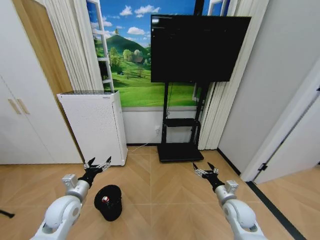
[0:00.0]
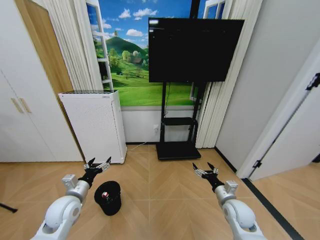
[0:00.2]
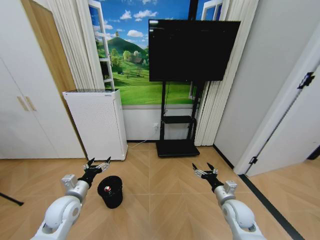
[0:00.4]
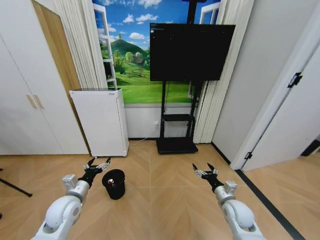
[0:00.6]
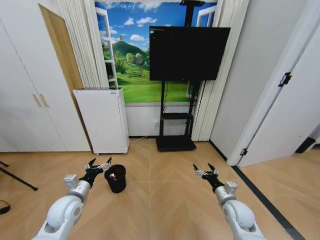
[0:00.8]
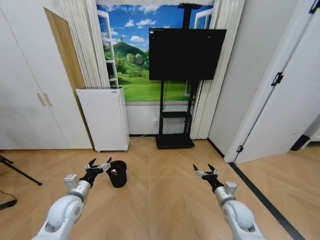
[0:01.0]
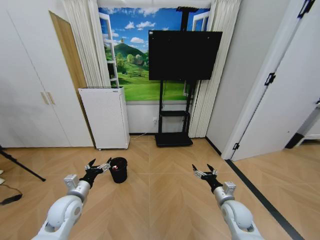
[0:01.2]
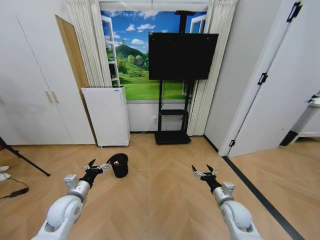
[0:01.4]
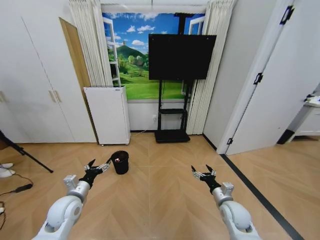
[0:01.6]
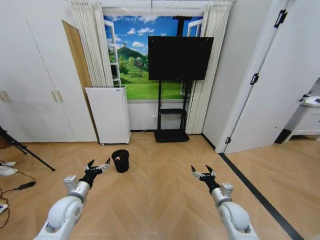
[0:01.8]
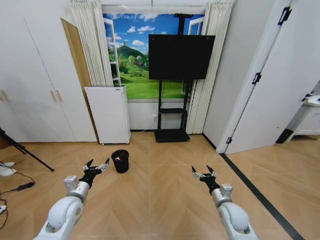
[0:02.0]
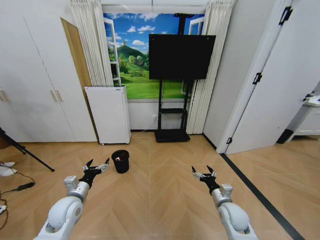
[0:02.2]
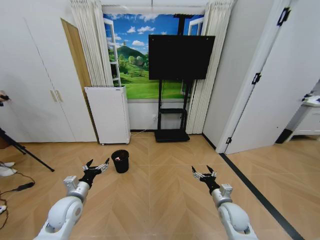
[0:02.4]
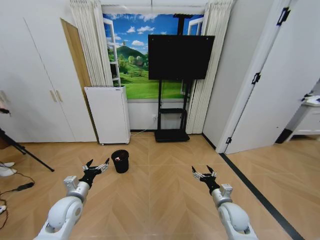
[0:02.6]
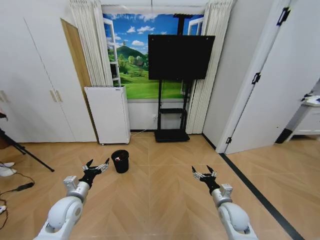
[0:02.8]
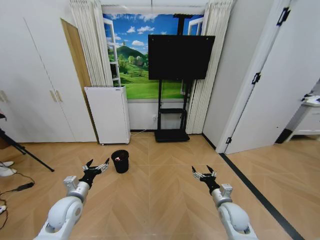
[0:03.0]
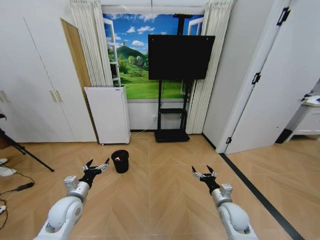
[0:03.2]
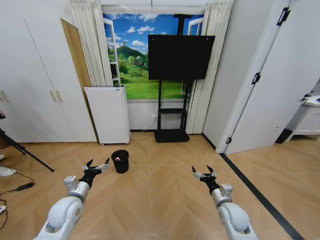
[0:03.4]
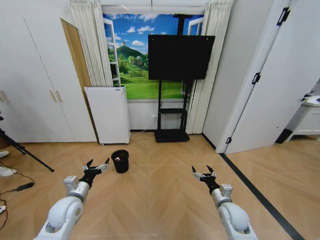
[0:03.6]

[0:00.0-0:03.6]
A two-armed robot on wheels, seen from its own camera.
Task of the whole recording: Pick up the trash bin and place the garbage on the floor into it.
0:01.8 to 0:03.6: Both grippers stay about where they are.

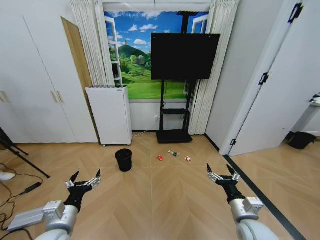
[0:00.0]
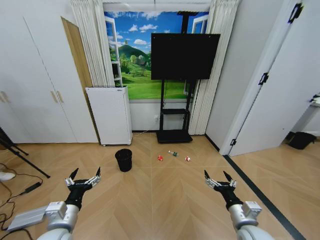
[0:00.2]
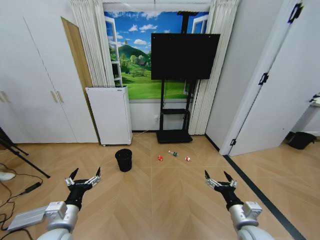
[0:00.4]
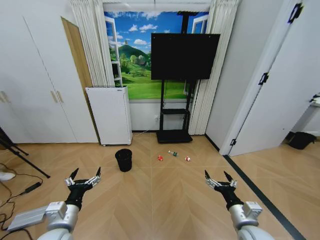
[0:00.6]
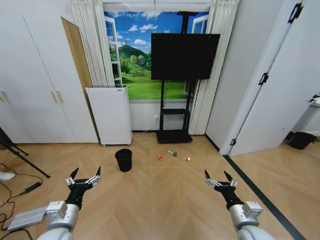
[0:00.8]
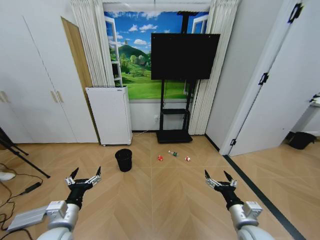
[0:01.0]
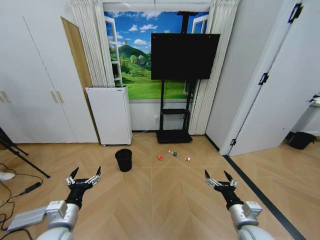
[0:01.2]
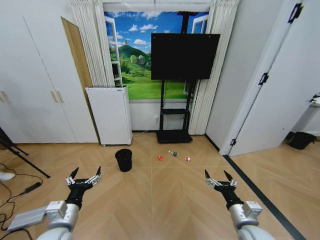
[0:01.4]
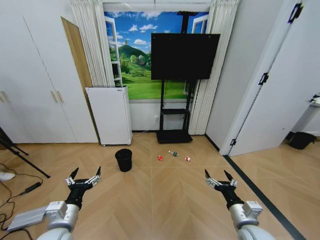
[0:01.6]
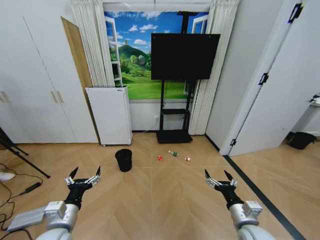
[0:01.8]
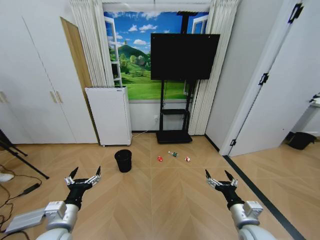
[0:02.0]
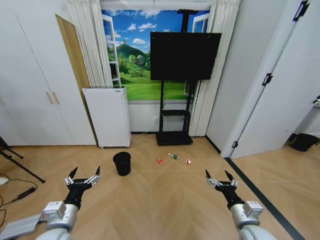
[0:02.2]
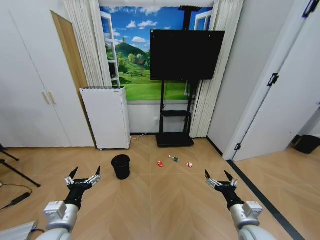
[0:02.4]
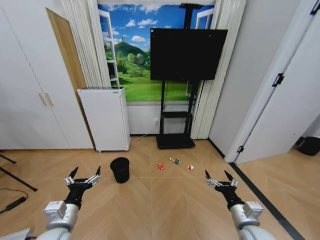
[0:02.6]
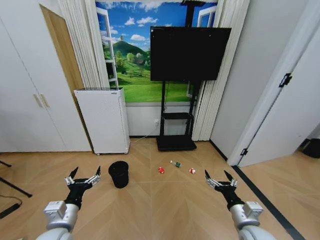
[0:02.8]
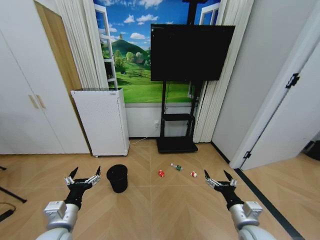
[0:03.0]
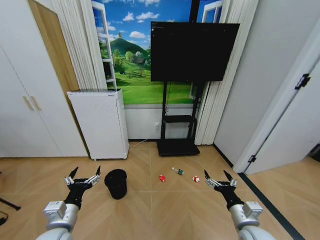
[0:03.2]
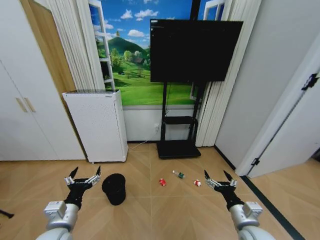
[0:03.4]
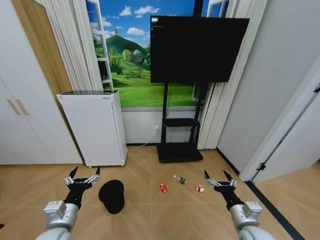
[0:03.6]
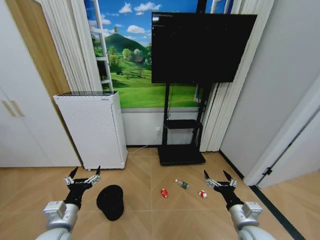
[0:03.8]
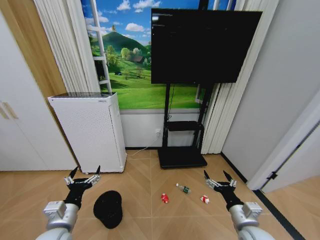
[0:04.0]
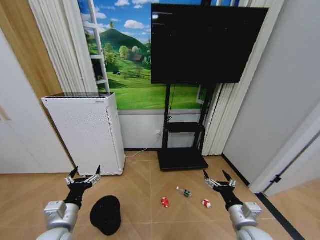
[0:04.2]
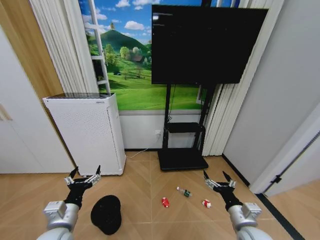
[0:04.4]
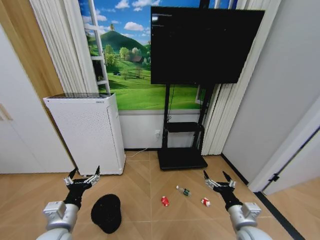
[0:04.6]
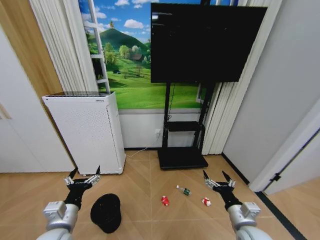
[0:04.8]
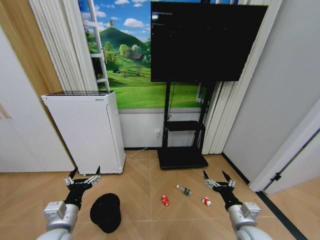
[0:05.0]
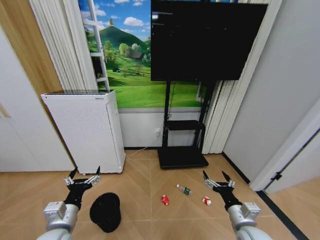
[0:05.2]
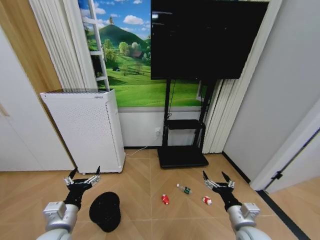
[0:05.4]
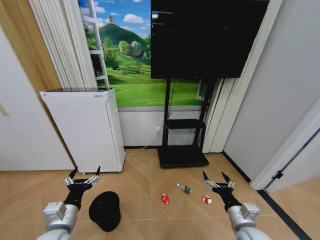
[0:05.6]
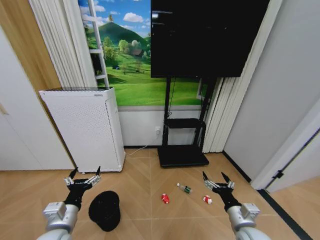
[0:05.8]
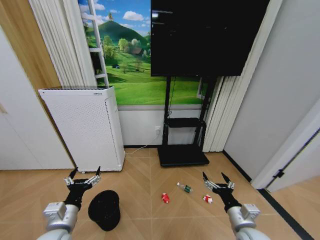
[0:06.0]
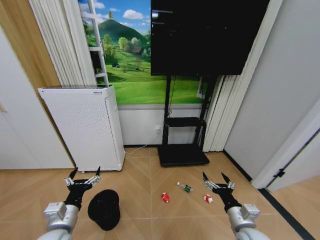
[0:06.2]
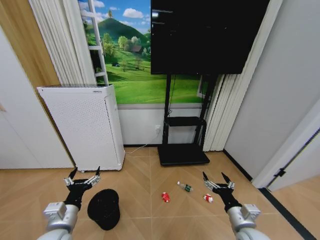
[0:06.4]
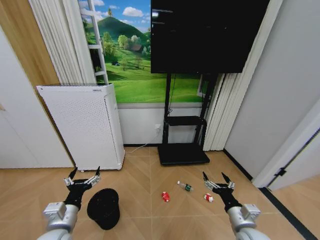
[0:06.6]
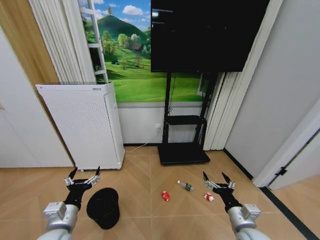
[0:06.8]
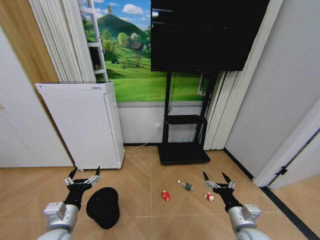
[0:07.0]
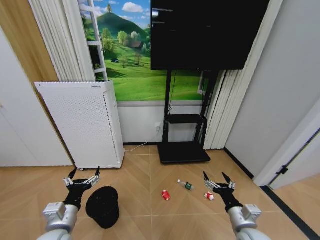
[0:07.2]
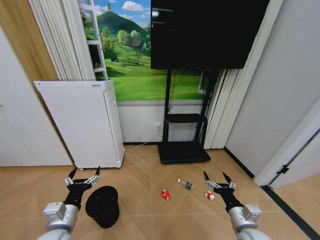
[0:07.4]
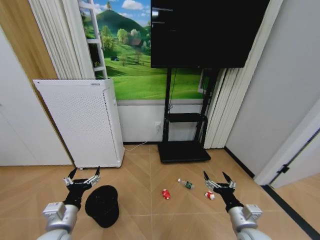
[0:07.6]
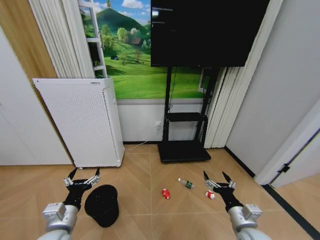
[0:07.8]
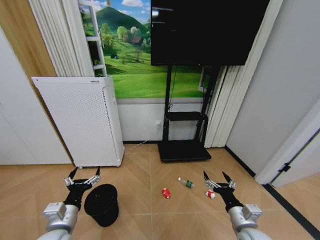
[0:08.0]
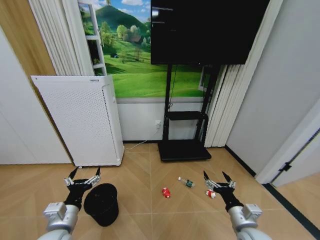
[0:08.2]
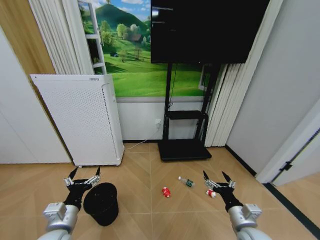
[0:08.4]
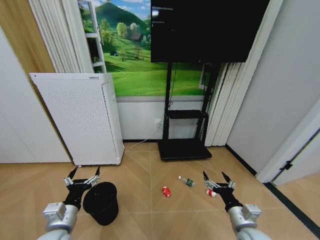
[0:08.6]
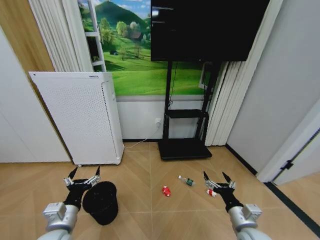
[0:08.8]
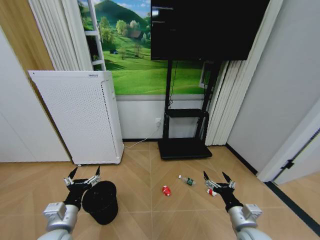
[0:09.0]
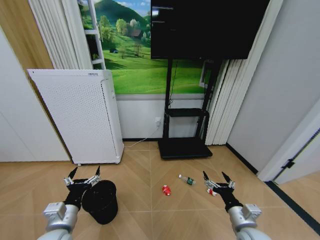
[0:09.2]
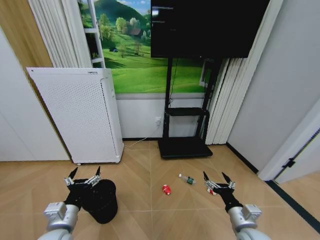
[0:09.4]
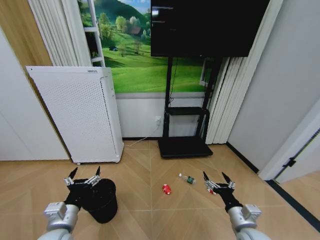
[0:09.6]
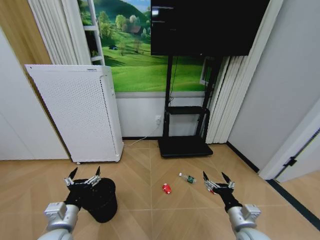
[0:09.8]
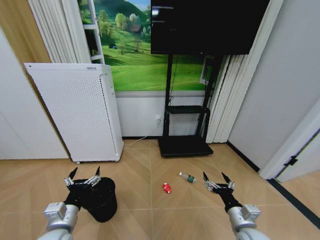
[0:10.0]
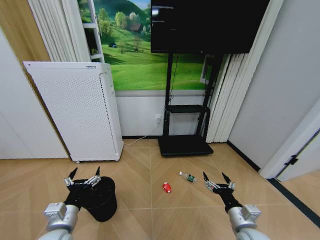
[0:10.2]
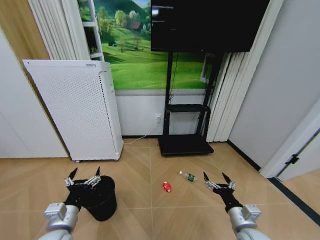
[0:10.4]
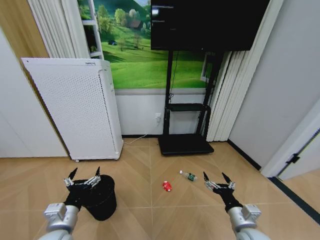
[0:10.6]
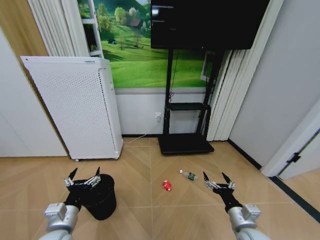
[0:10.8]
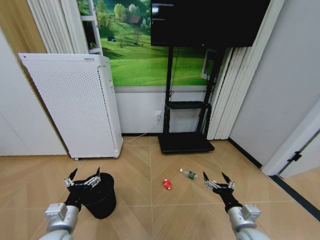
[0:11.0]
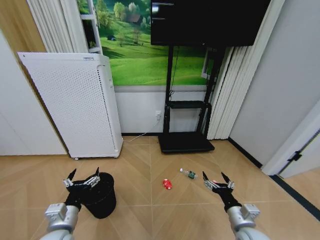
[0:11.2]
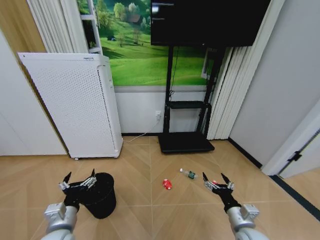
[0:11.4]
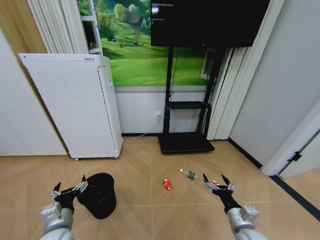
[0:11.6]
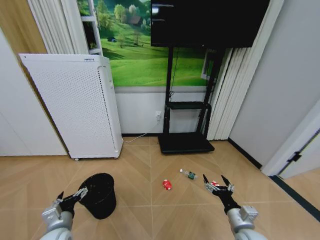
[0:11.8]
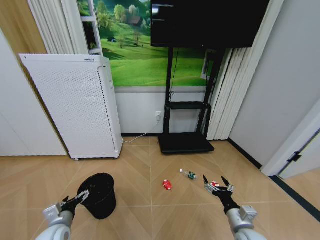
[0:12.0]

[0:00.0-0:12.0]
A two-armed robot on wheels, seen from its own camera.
Task of the whole recording: Pick up the trash bin and place the garbage on the floor into it.
0:04.4 to 0:10.4: Both grippers stay put.
0:10.4 to 0:12.0: The left gripper travels downward and to the left by about 10 cm.

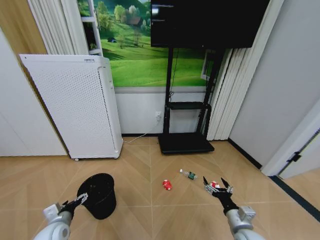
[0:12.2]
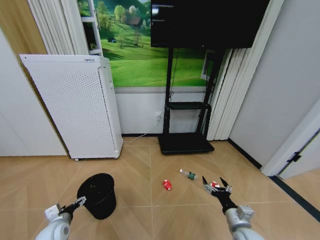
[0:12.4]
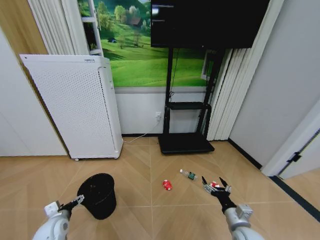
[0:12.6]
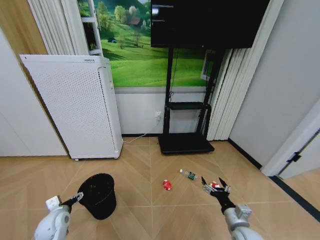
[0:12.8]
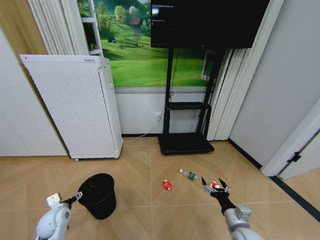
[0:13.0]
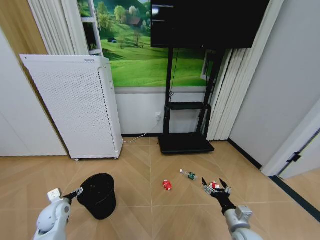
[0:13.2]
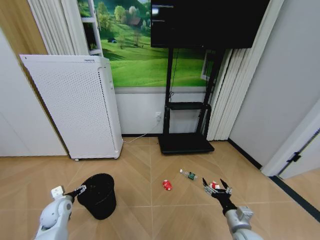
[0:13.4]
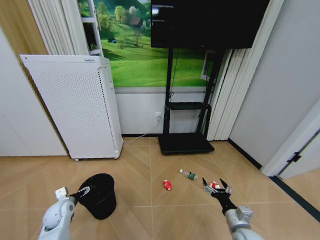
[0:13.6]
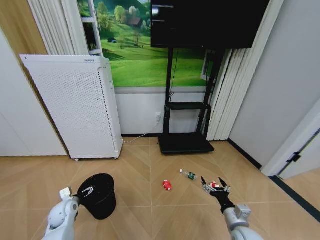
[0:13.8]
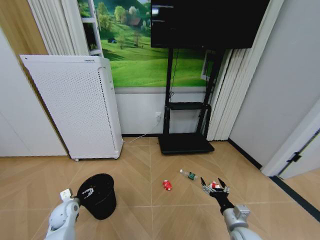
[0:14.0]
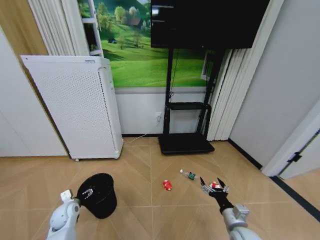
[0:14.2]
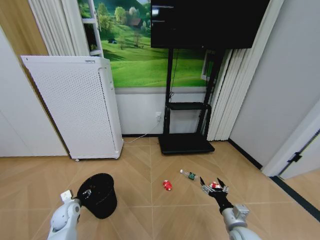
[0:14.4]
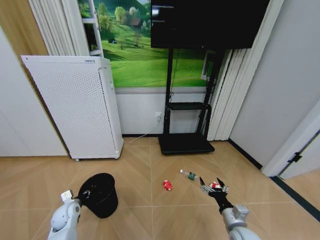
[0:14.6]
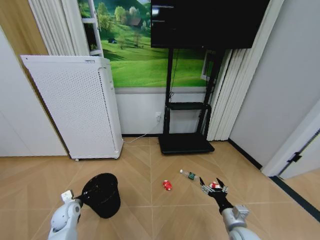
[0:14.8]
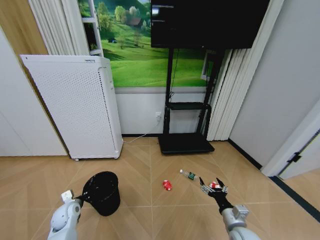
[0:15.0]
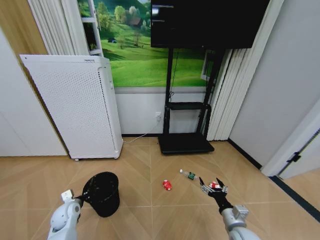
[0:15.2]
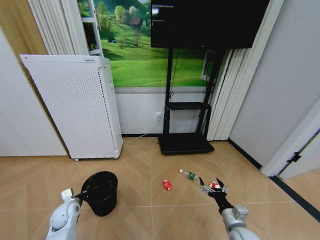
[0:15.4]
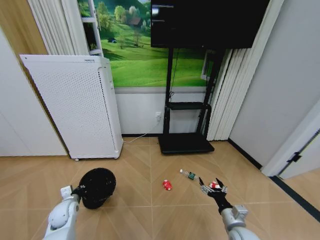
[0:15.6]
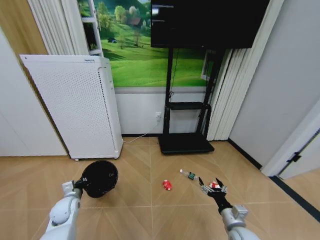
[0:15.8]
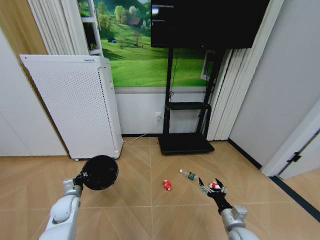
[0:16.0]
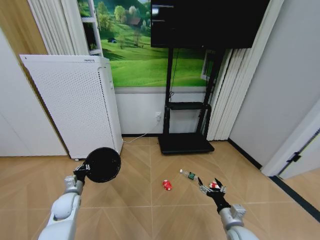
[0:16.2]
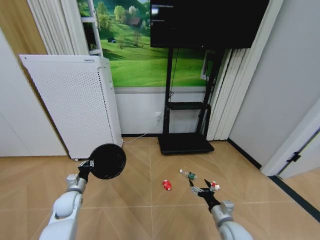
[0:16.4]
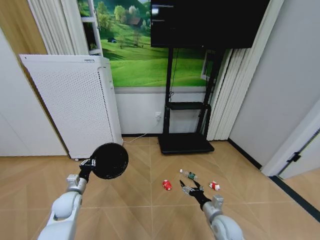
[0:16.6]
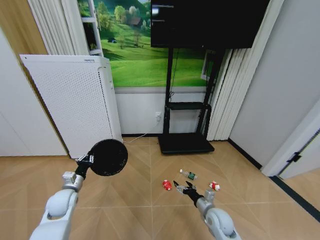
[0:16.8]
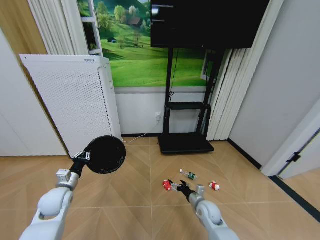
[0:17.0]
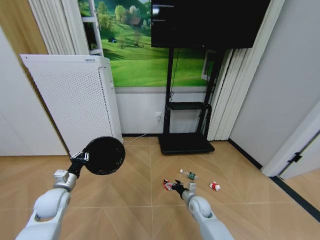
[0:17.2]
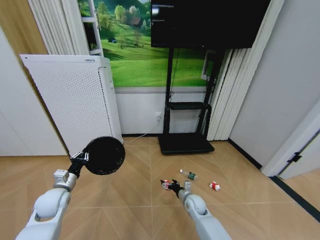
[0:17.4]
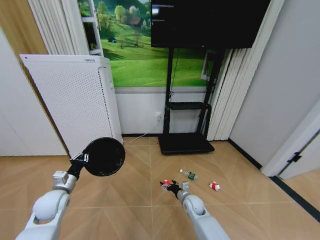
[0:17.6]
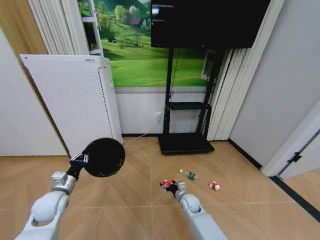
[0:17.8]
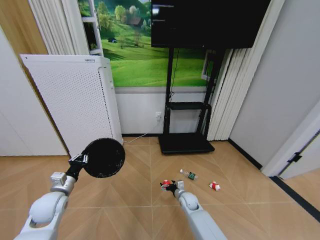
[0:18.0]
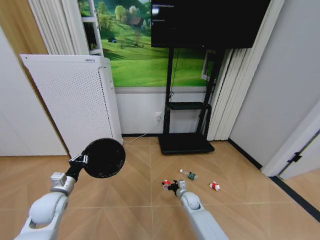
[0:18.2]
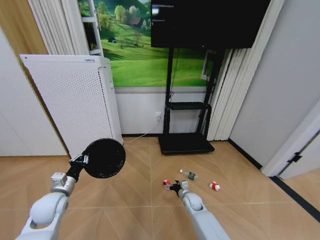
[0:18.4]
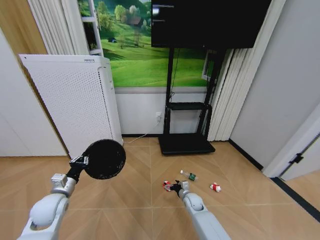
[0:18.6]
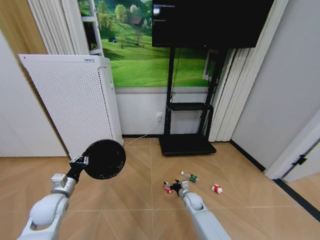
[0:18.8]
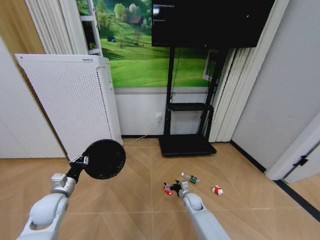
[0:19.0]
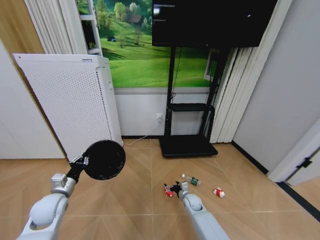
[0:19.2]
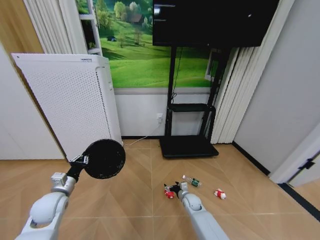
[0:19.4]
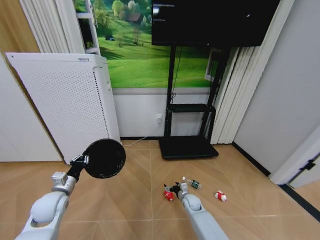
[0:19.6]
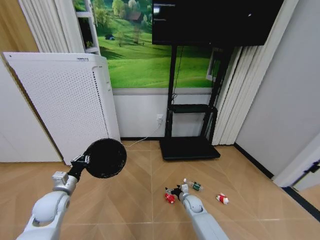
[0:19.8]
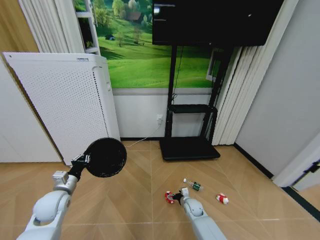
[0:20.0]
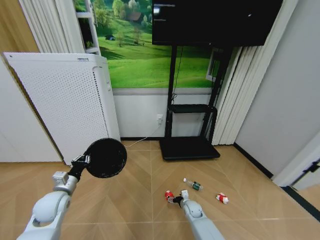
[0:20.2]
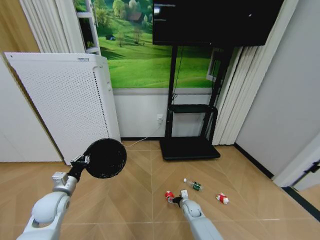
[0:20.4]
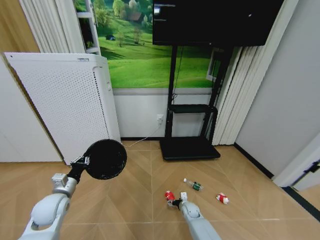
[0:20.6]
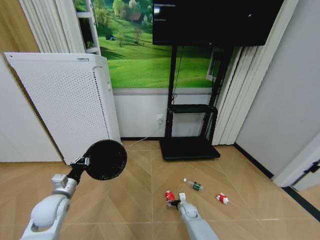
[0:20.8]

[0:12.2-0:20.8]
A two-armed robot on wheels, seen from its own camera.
Task of the whole recording: Pick up the trash bin and place the garbage on the floor into it.
0:12.2 to 0:13.6: The left gripper shifts roughly 10 cm forward.
0:13.6 to 0:15.0: The left gripper closes.
0:15.0 to 0:16.6: The left gripper goes about 5 cm upward, while the right gripper is displaced forward by roughly 5 cm.
0:16.6 to 0:18.0: The left gripper moves upward, approximately 5 cm; the right gripper goes approximately 20 cm forward, to the left and downward.
0:18.0 to 0:19.4: The grippers move only a little.
0:19.4 to 0:20.8: The right gripper heads downward, covering roughly 5 cm.
